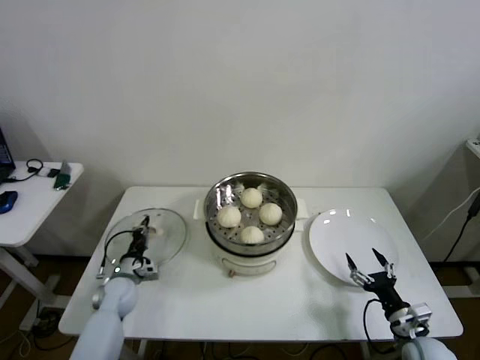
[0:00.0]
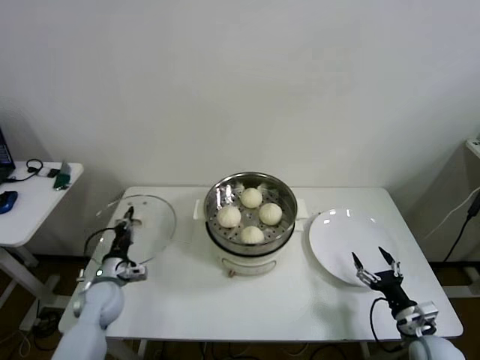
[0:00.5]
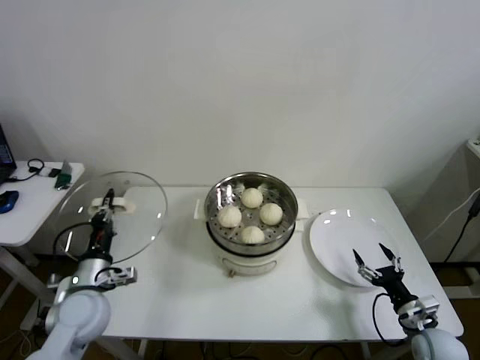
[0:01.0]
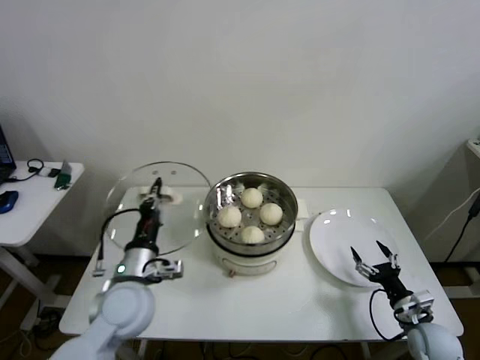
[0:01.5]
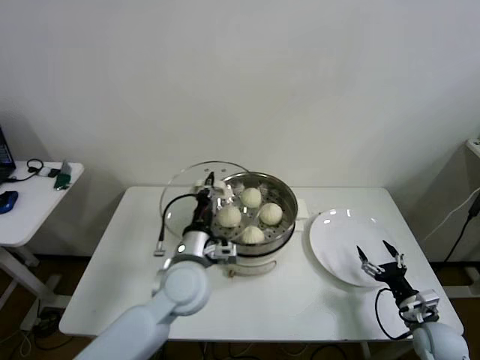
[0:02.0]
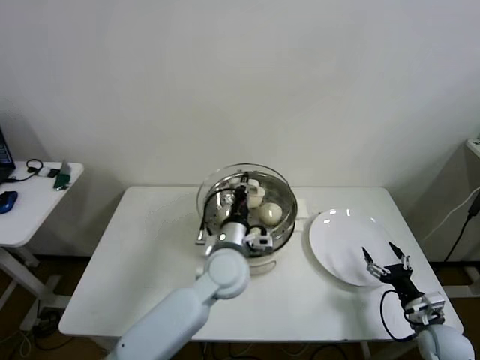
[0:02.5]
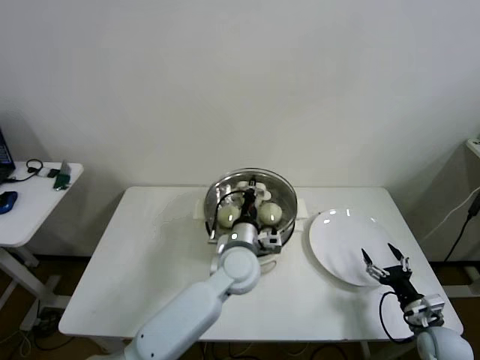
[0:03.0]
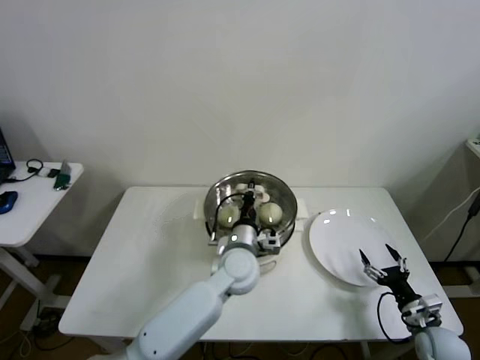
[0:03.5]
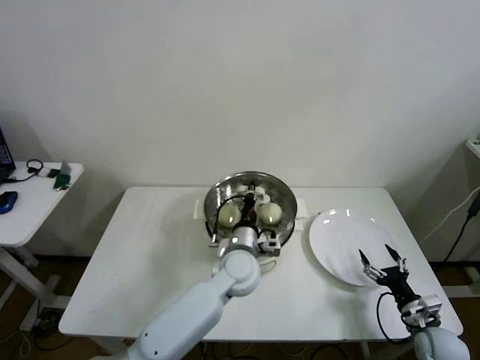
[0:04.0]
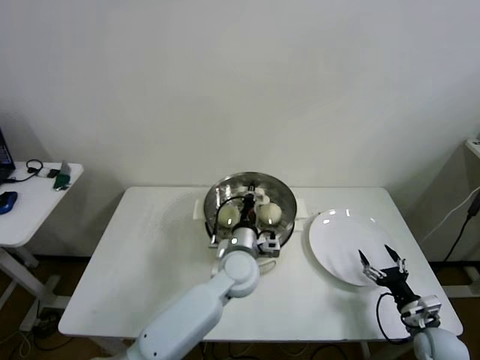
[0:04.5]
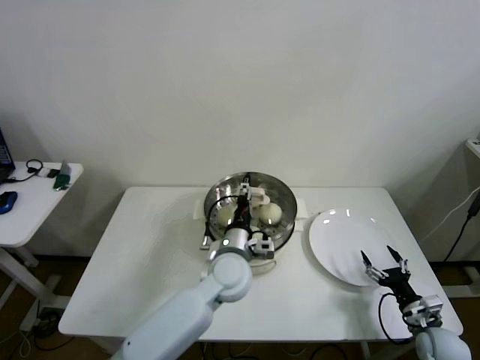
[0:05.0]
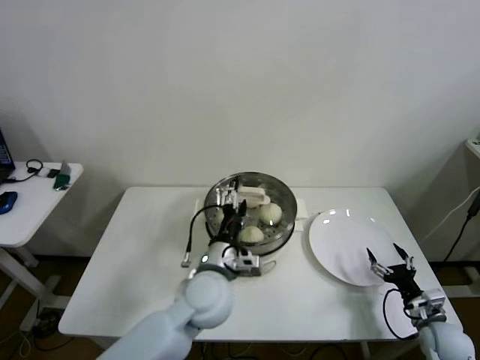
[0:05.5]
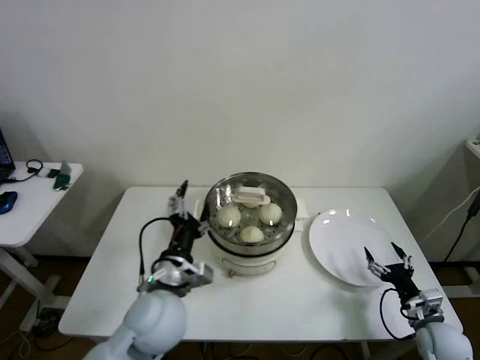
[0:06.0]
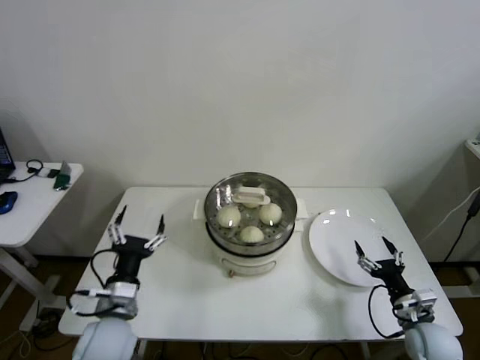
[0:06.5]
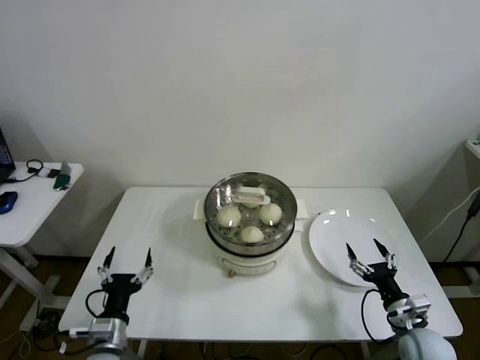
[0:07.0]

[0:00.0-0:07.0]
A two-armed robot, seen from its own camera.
Step, 0:00.5 to 0:04.5: Place the pot lid on the steamer with left gripper.
0:00.0 to 0:02.0: The left gripper travels to the right and upward by roughly 30 cm. The right gripper ends up about 5 cm from where it was.
0:02.0 to 0:03.5: The left gripper heads to the right, forward and downward, covering about 15 cm.
0:03.5 to 0:05.0: The left gripper opens.
0:05.0 to 0:07.0: The right gripper goes approximately 5 cm to the left; the left gripper heads to the left and backward, covering some 30 cm, and opens its fingers.

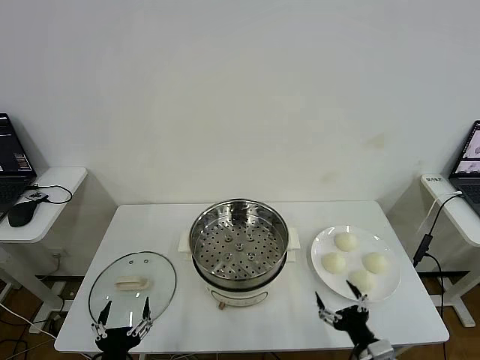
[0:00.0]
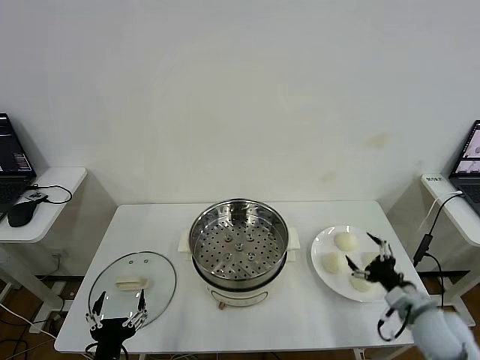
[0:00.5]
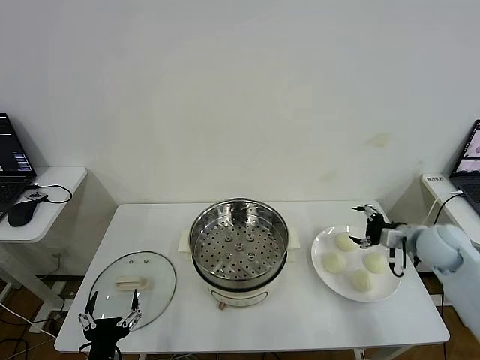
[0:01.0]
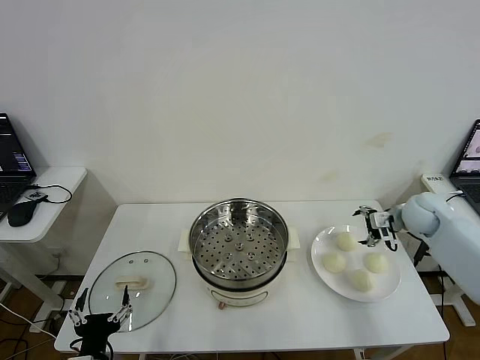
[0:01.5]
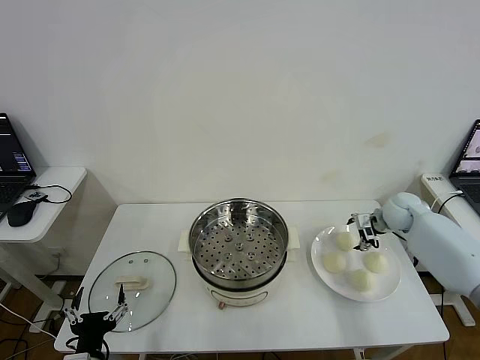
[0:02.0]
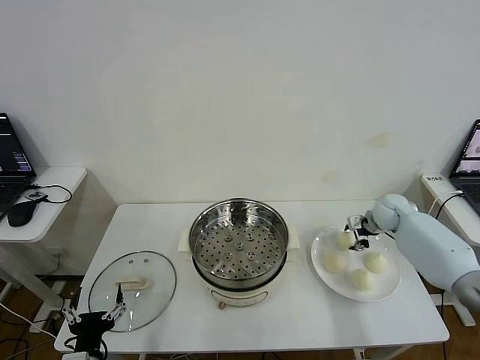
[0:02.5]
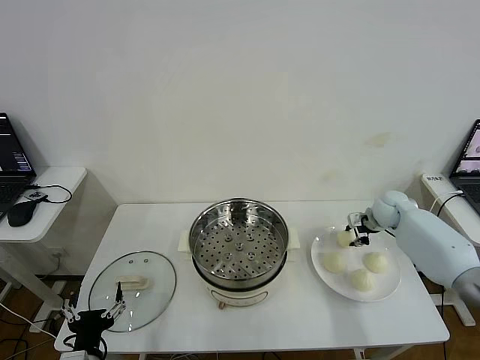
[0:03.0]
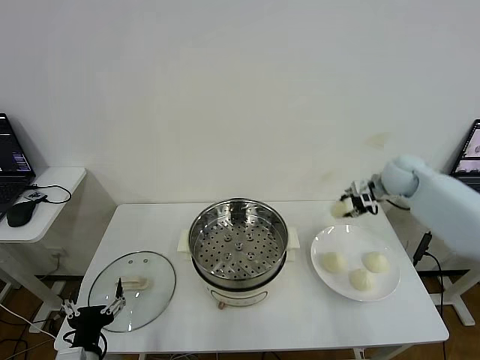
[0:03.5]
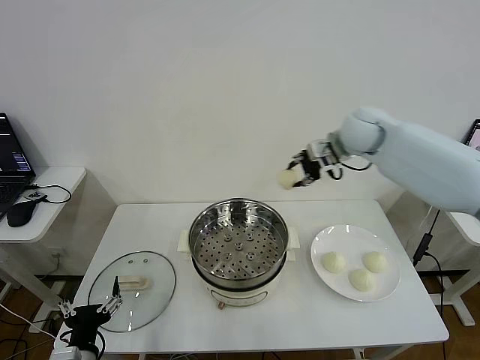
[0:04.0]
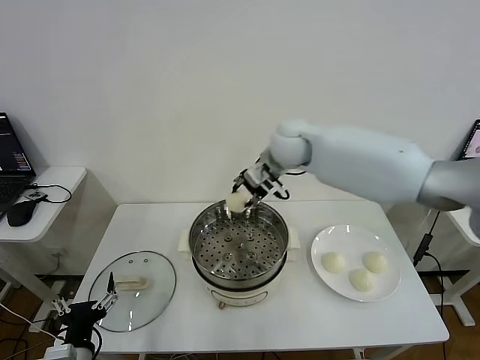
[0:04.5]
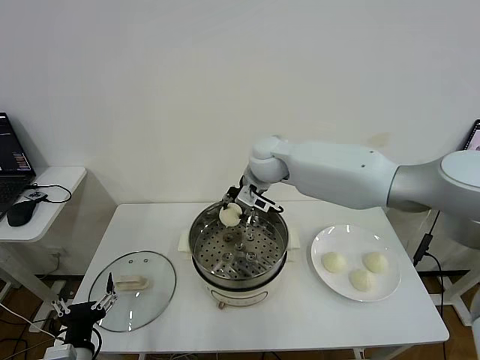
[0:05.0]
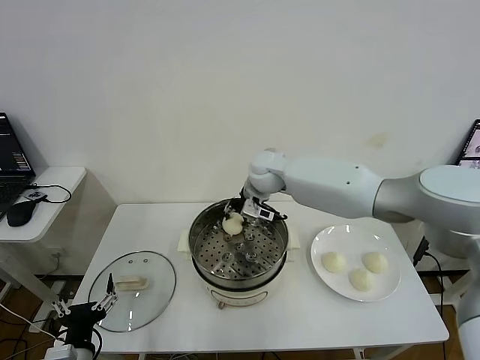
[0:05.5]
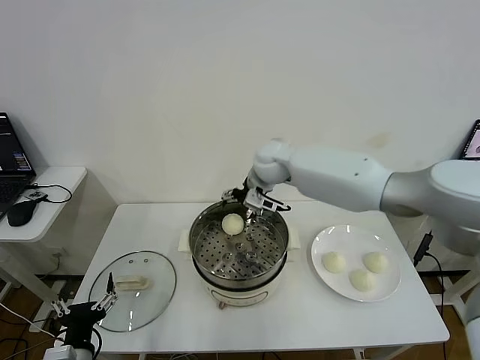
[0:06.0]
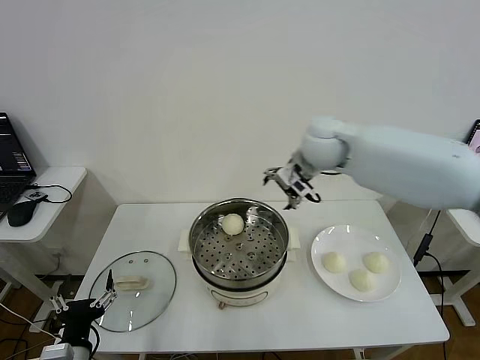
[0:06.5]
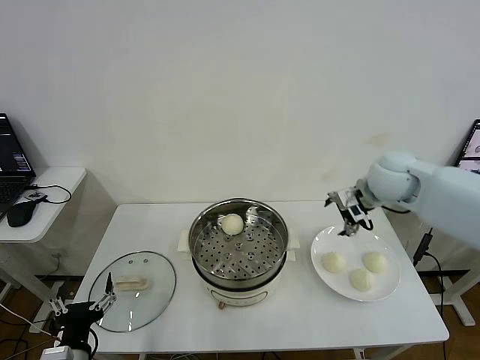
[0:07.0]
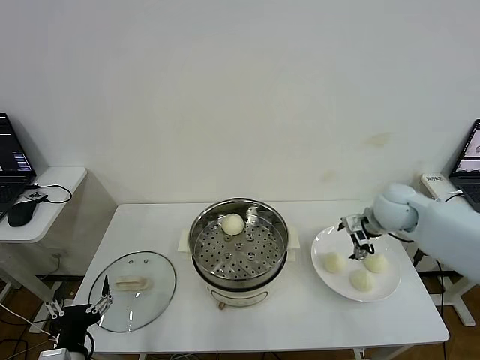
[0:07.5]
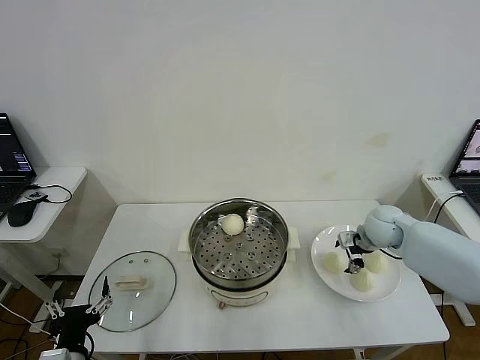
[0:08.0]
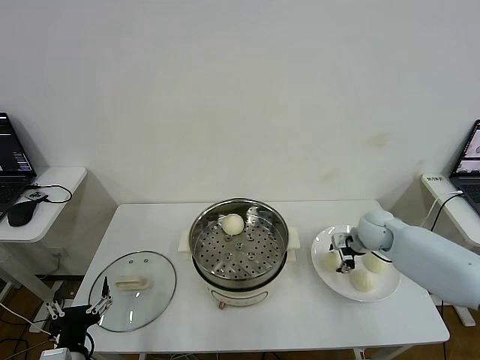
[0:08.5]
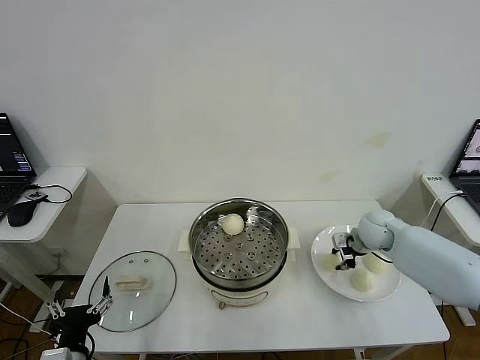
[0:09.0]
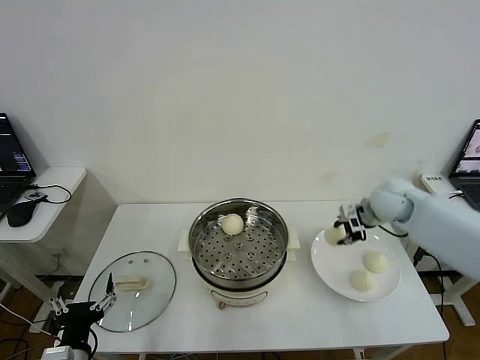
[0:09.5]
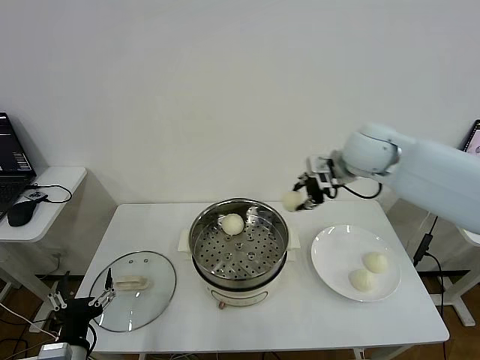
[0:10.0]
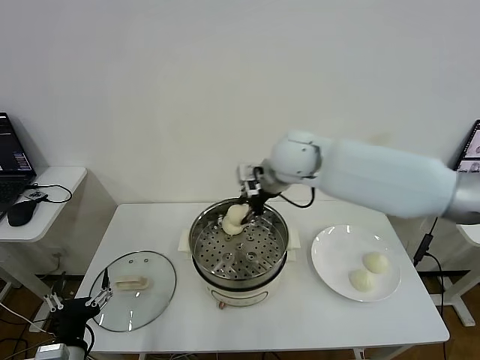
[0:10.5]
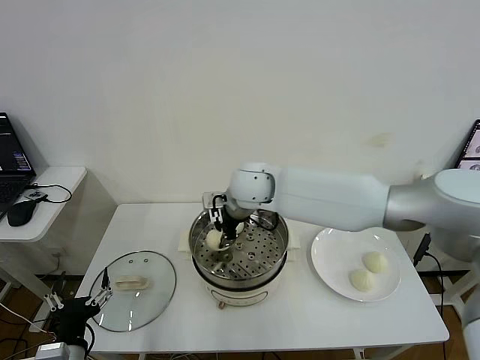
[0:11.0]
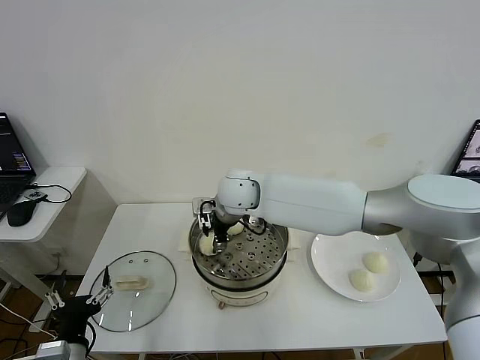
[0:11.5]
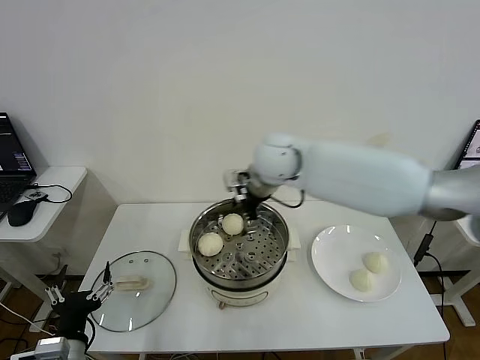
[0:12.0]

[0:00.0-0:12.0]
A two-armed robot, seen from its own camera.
Step, 0:00.0 to 0:02.5: Grasp the baozi in the plate with right gripper.
Step, 0:03.0 to 0:05.5: Place the baozi on the steamer with right gripper.
Step, 0:06.0 to 0:09.0: Grasp the baozi in the plate with right gripper.
Step, 0:09.5 to 0:11.5: Place the baozi on the steamer with right gripper.
0:02.0 to 0:04.0: The right gripper heads upward and to the left, covering about 30 cm, and closes its fingers.
0:04.0 to 0:06.0: The right gripper moves to the left and downward, some 15 cm, and opens its fingers.
0:06.0 to 0:08.0: The right gripper goes some 30 cm to the right and downward.
0:08.0 to 0:10.0: The right gripper moves upward and to the left, approximately 25 cm, and closes.
0:10.0 to 0:12.0: The right gripper moves to the left, roughly 10 cm, and opens its fingers.

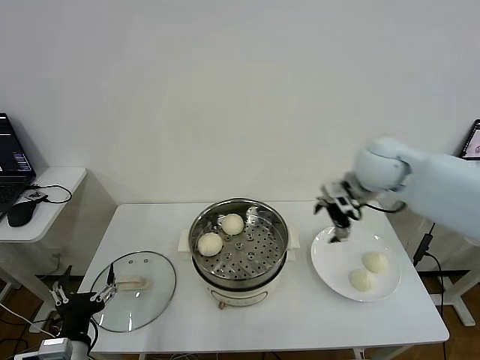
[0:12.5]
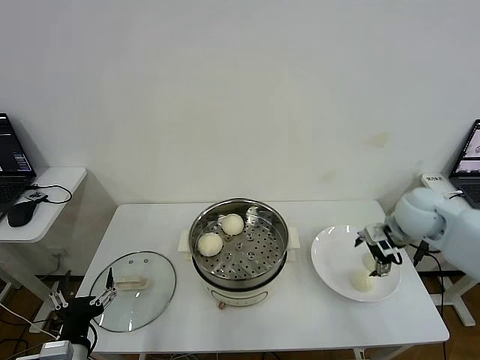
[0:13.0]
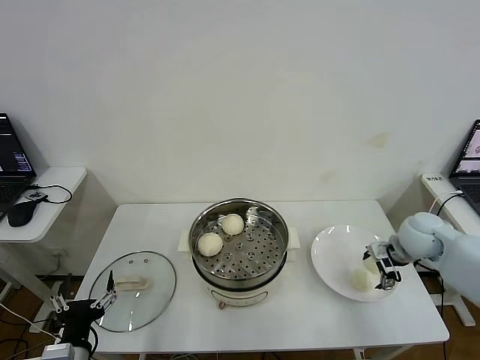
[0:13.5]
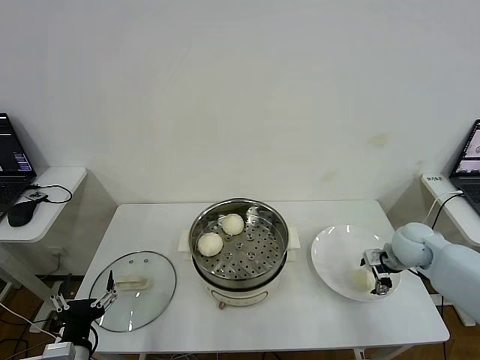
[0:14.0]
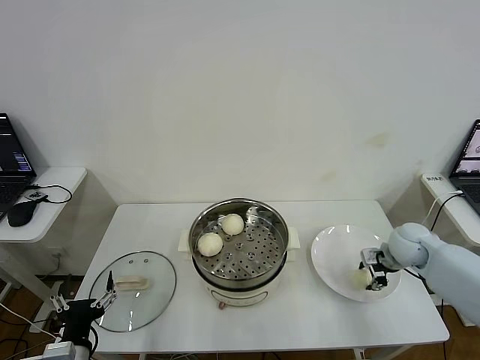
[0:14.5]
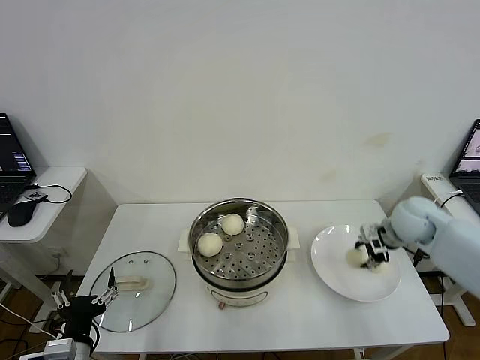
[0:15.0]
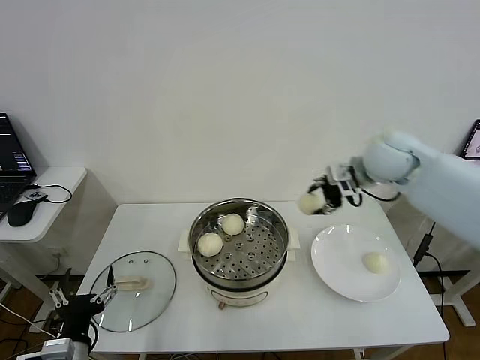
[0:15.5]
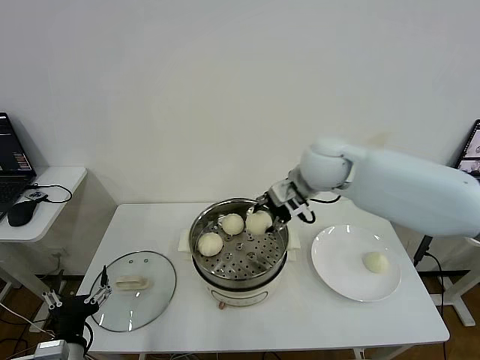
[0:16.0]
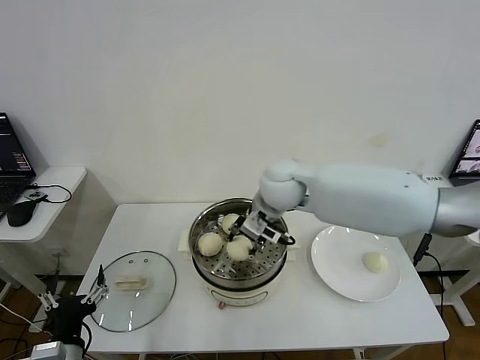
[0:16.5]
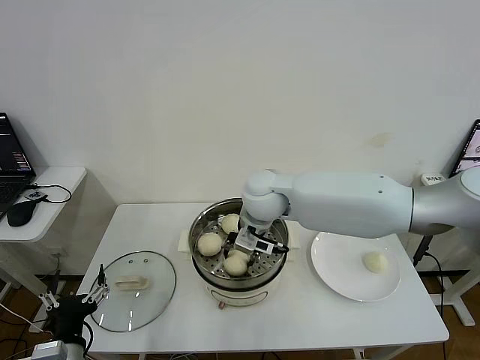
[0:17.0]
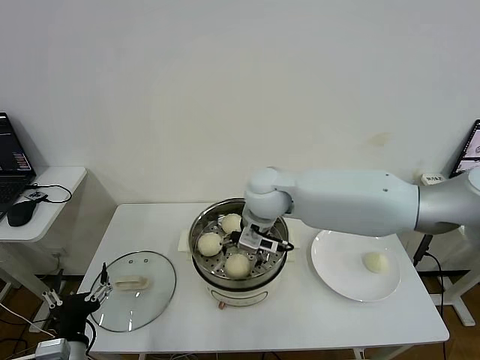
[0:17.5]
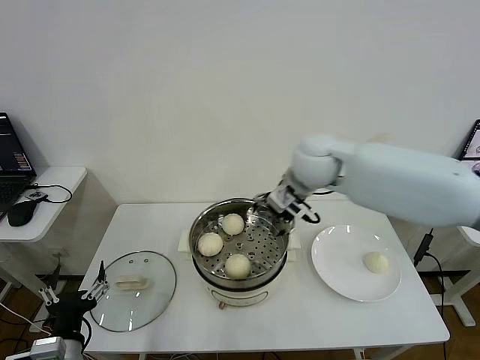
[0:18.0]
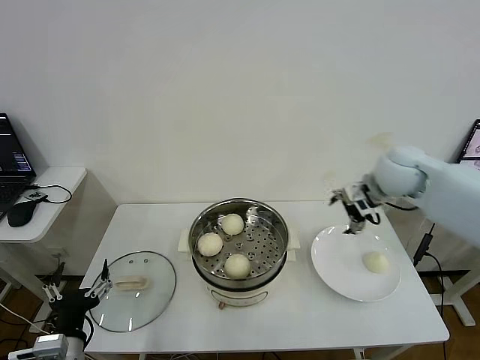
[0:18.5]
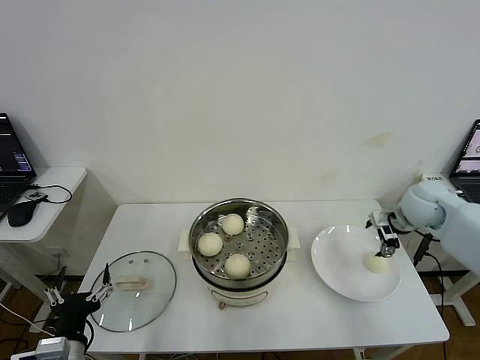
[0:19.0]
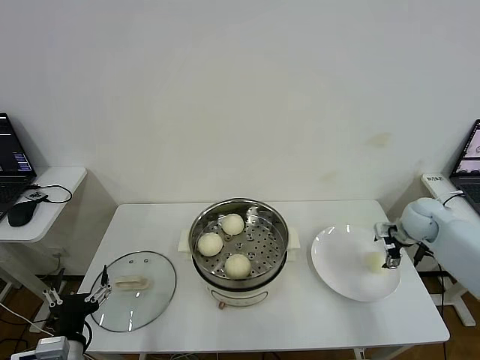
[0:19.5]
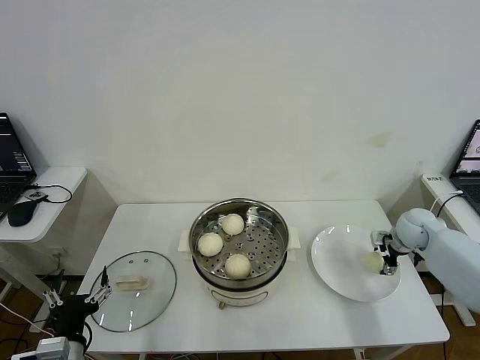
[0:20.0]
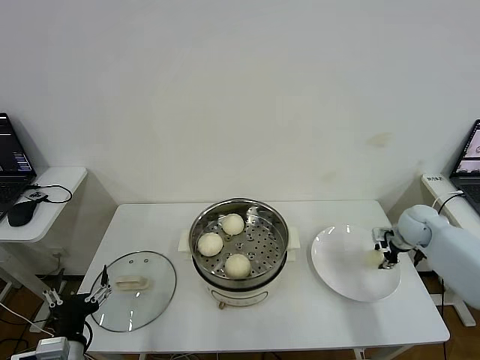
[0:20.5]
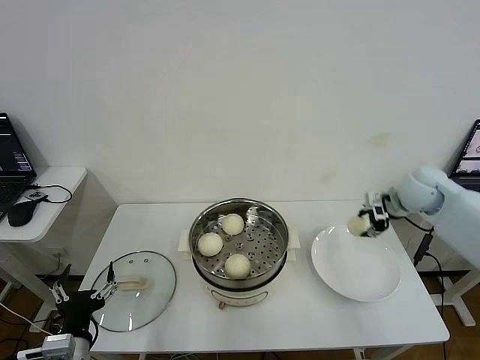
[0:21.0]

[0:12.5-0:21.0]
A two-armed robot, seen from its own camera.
Step, 0:12.5 to 0:14.5: Grasp the baozi in the plate with right gripper.
Step, 0:15.0 to 0:17.5: Place the baozi on the steamer with right gripper.
Step, 0:18.0 to 0:20.0: Grasp the baozi in the plate with right gripper.
0:12.5 to 0:14.5: The right gripper is displaced downward and to the right by about 20 cm, and closes.
0:14.5 to 0:16.5: The right gripper shifts about 35 cm to the left and upward.
0:16.5 to 0:19.0: The right gripper goes approximately 35 cm to the right, and opens its fingers.
0:19.0 to 0:21.0: The right gripper reaches about 10 cm downward, then returns, and closes its fingers.
